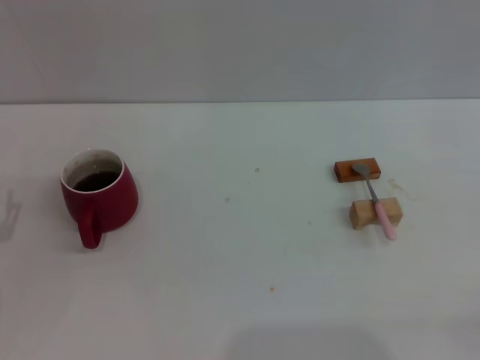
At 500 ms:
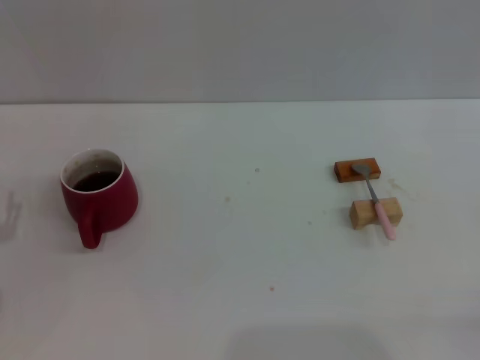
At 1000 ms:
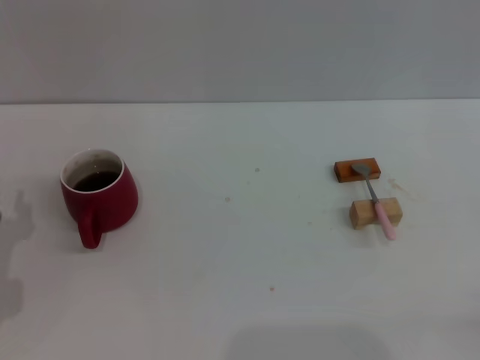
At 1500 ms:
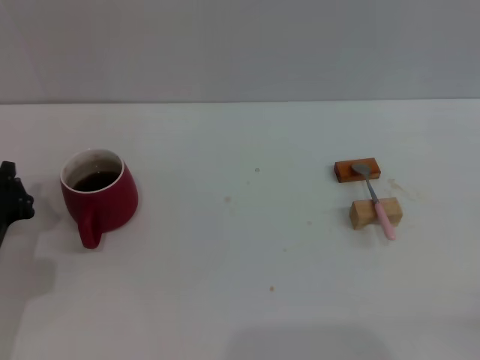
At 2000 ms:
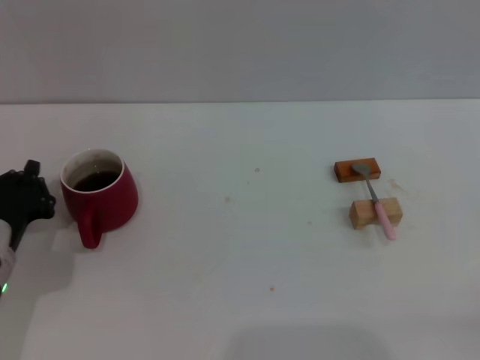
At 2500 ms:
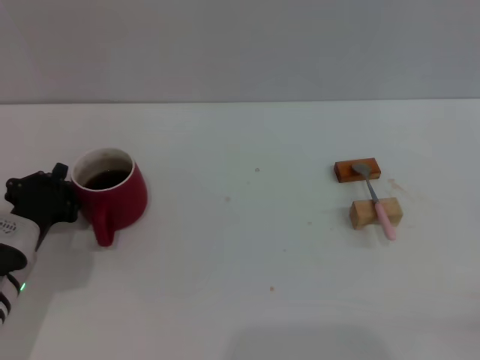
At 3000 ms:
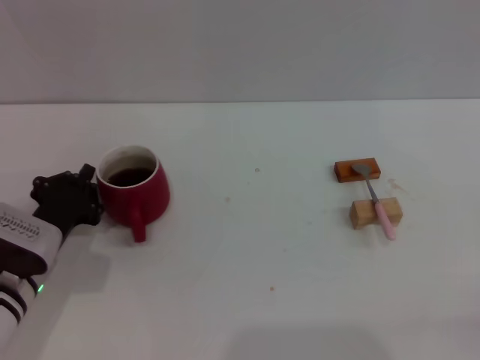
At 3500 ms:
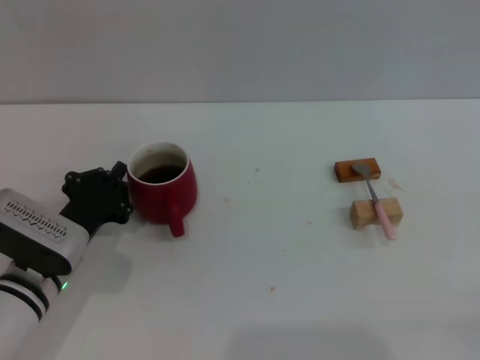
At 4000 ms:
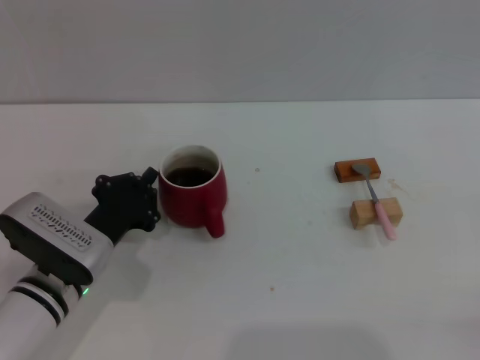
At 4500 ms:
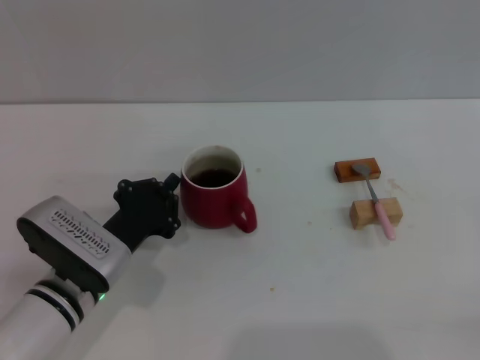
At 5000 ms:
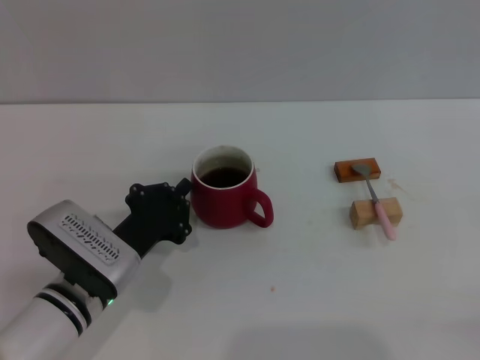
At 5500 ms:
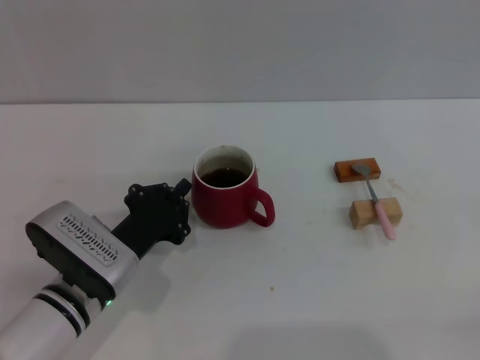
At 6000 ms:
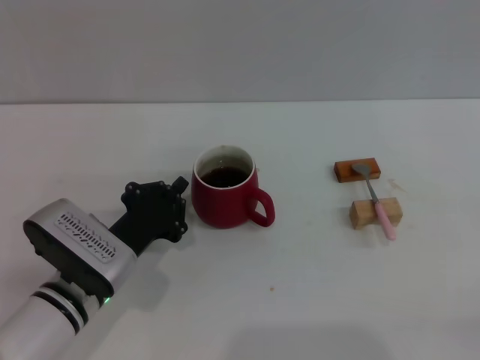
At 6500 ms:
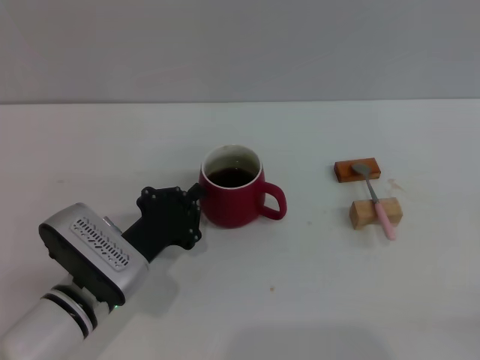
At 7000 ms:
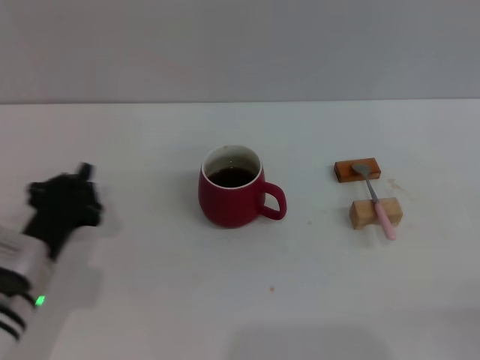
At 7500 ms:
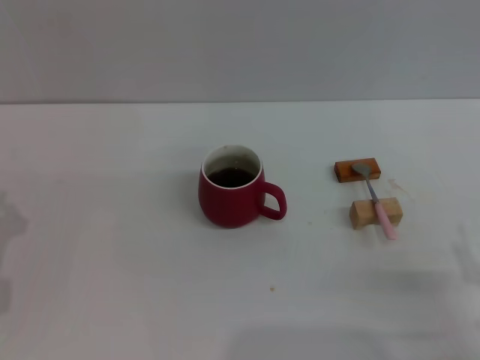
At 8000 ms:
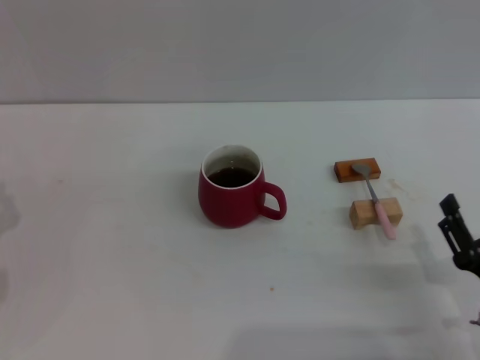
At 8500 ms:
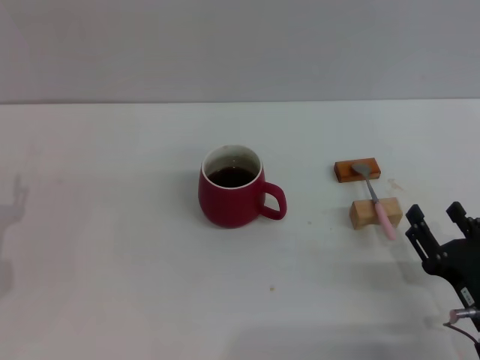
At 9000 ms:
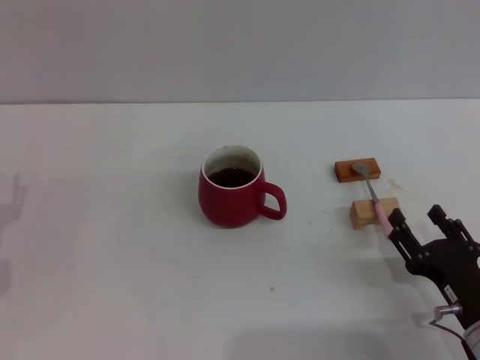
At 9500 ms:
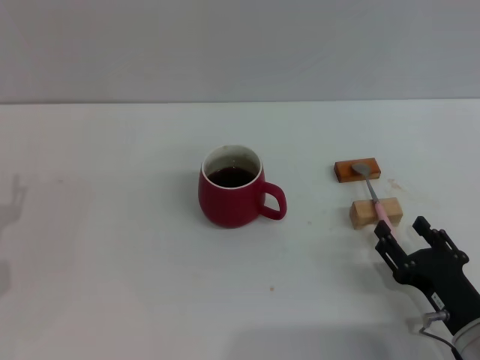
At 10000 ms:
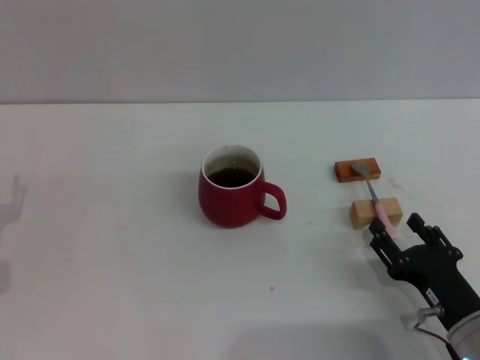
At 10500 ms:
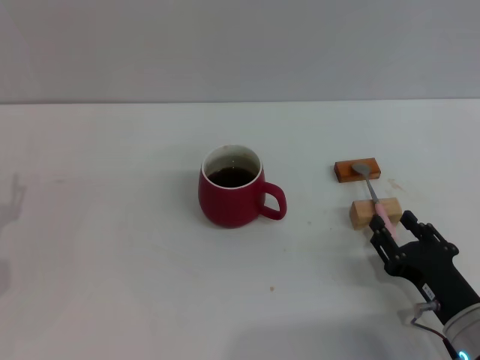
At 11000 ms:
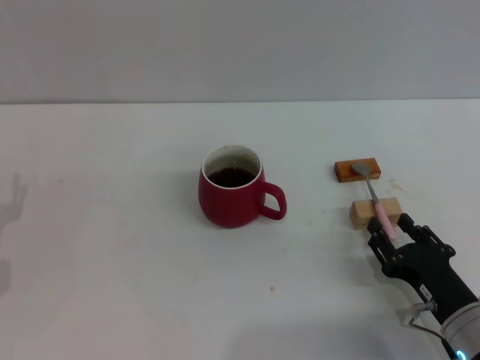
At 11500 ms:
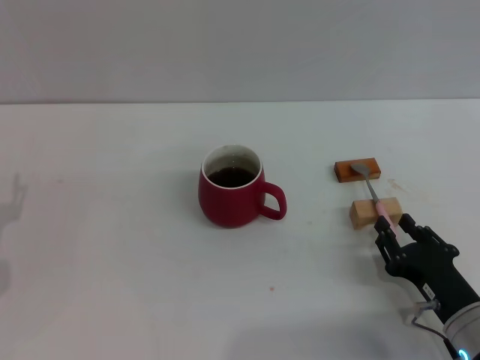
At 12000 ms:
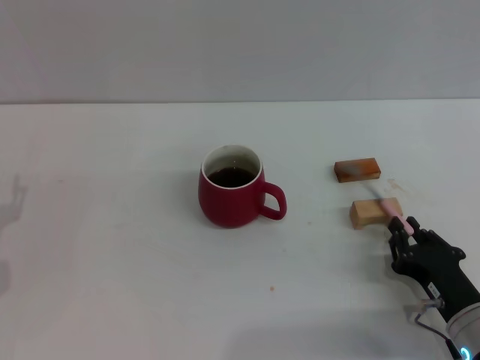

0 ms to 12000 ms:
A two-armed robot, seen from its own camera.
Task of the whole recording: Move the red cup to the center, lift the pink spoon, stir it three times in the cup, and put the spoon into the cup.
Step, 0 ms to 6500 ms: Move the cup with coffee to the center of view with the left gripper.
0 ms to 2000 ms: The left gripper moves roughly 5 cm, and closes its fingers.
2000 ms to 4000 ms: The left gripper heads to the right, covering roughly 10 cm.
4000 ms to 6000 ms: The grippers move only a little.
6000 ms to 8000 ms: The right gripper travels to the left and forward by some 10 cm; the left gripper goes roughly 15 cm to the left.
10000 ms to 12000 ms: The right gripper closes up.

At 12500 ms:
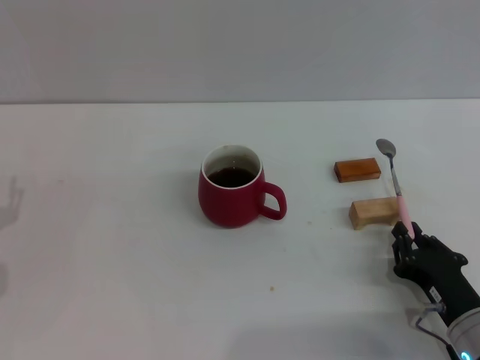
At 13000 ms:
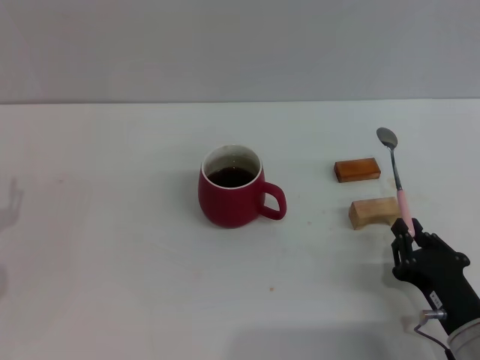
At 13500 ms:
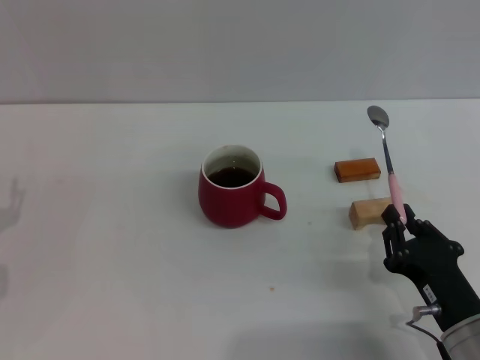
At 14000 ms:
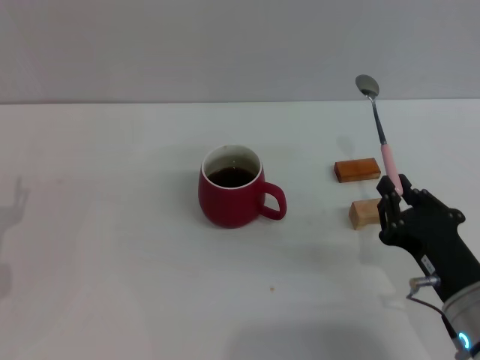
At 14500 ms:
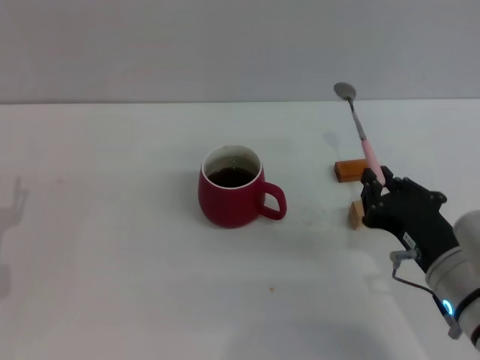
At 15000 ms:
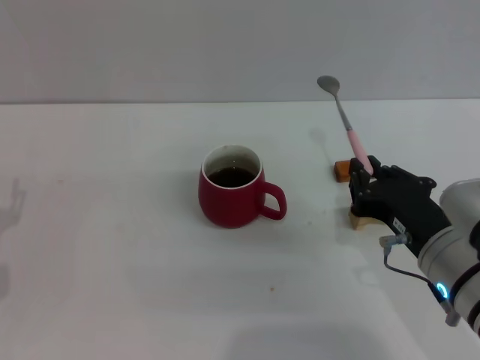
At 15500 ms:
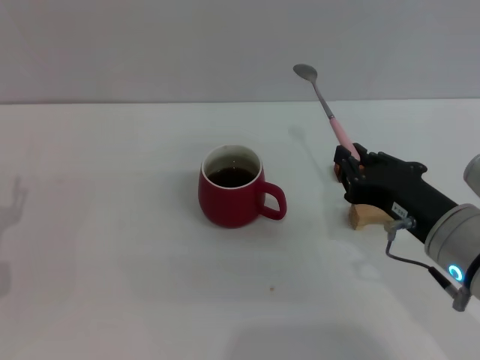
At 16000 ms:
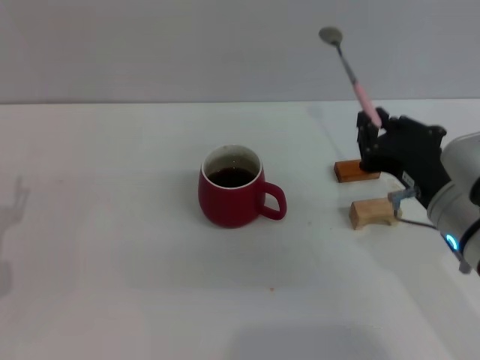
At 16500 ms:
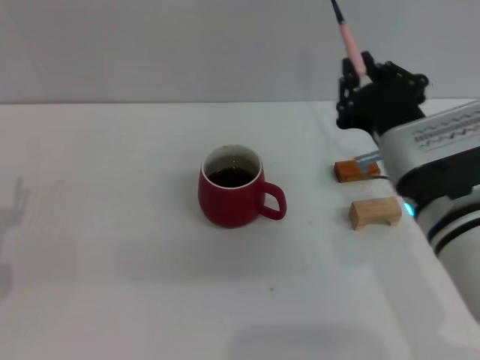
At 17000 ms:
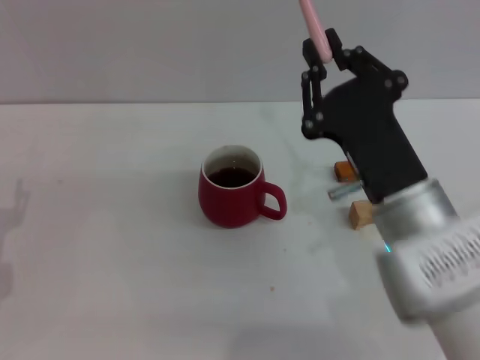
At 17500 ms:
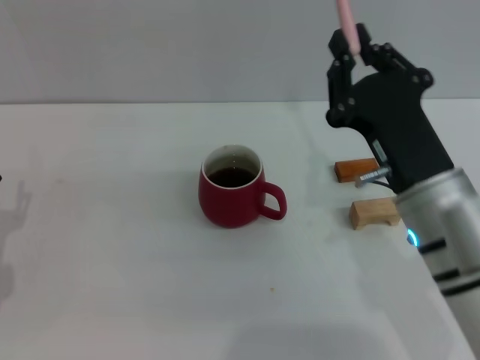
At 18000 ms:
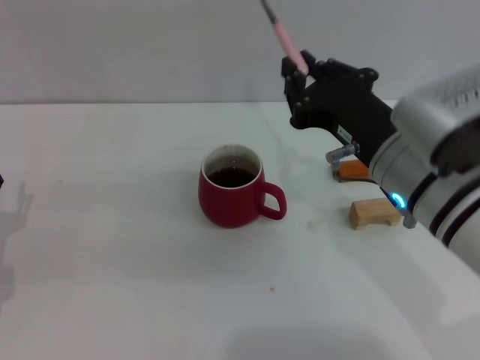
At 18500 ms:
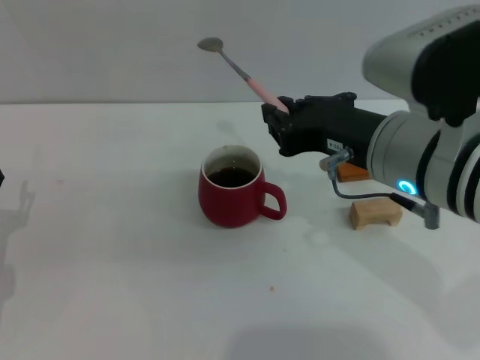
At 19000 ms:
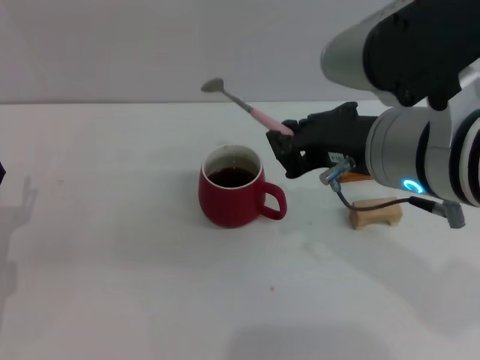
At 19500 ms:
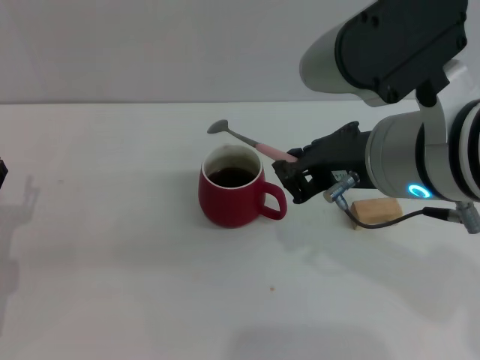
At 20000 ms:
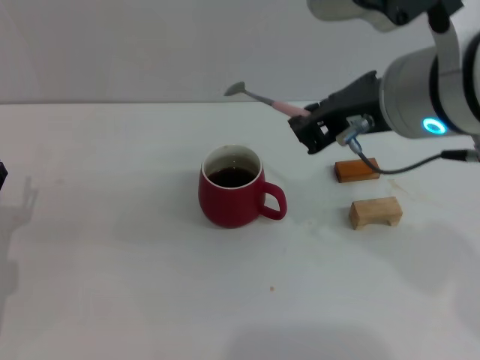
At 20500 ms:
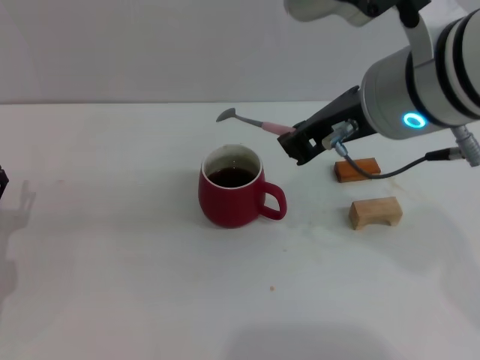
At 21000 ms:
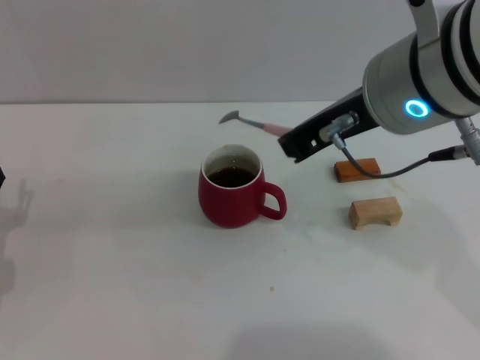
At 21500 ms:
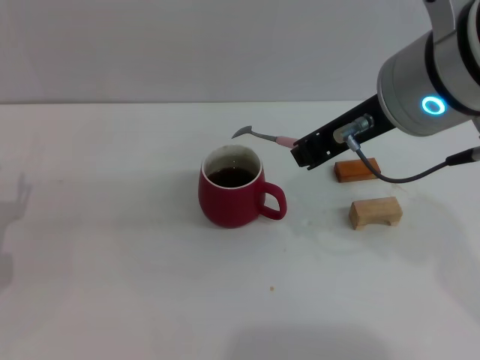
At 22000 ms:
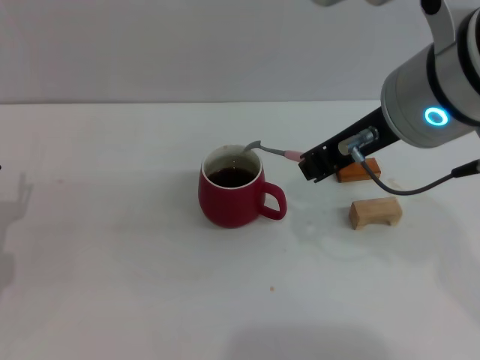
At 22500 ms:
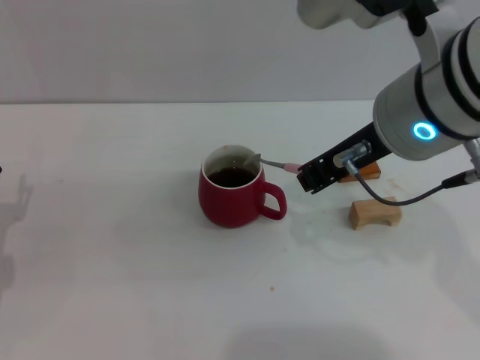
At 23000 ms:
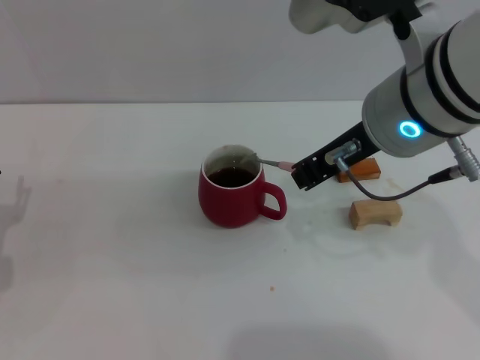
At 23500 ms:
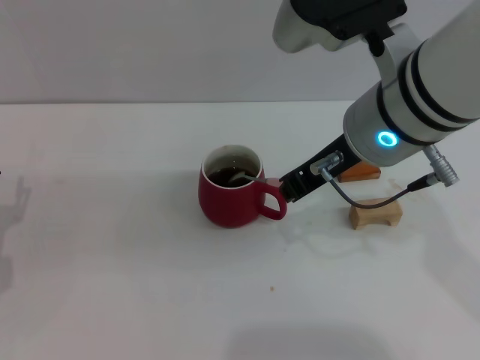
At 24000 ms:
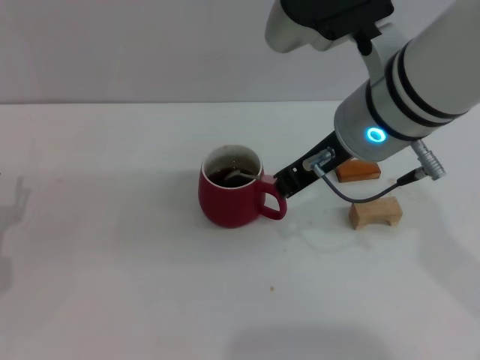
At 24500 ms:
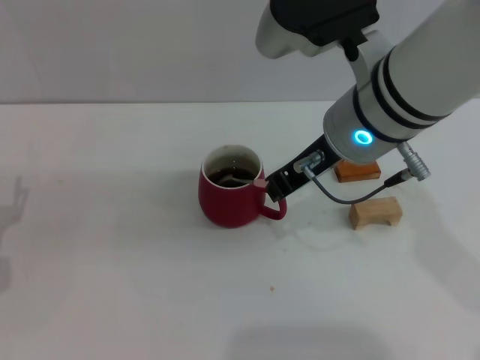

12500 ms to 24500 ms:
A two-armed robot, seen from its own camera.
Task of the whole recording: Move the red cup to the center, lift the pink spoon, stir it three times in the cup, and put the spoon into the cup.
12500 ms to 14500 ms: The right gripper travels upward by roughly 10 cm.
14500 ms to 16500 ms: The right gripper heads upward and forward, covering about 10 cm.
16500 ms to 18500 ms: The right gripper is displaced upward by roughly 5 cm.
18500 ms to 20500 ms: The right gripper moves upward, roughly 5 cm.
20500 ms to 22500 ms: The grippers move only a little.
22500 ms to 24500 ms: The right gripper ends up roughly 5 cm from where it was.

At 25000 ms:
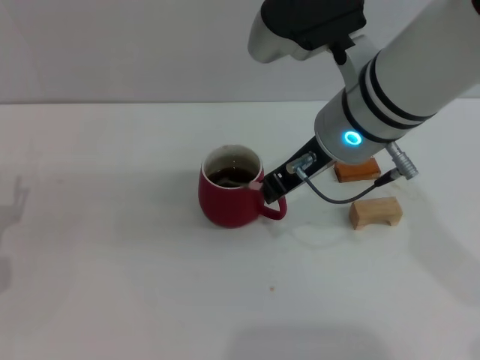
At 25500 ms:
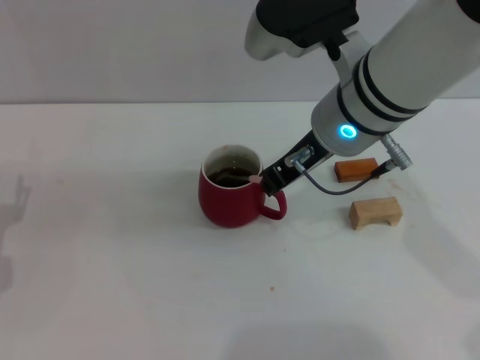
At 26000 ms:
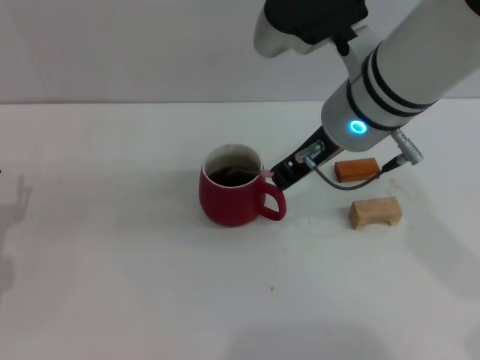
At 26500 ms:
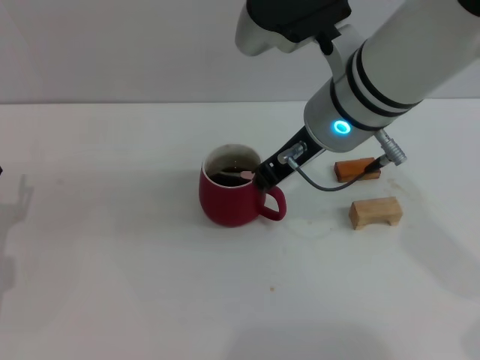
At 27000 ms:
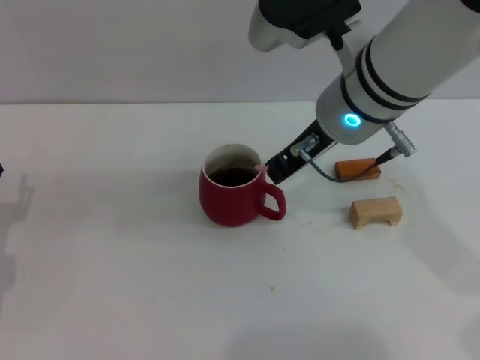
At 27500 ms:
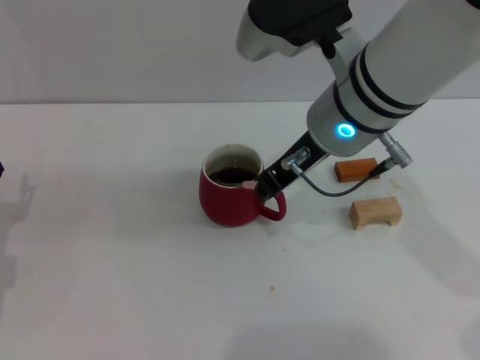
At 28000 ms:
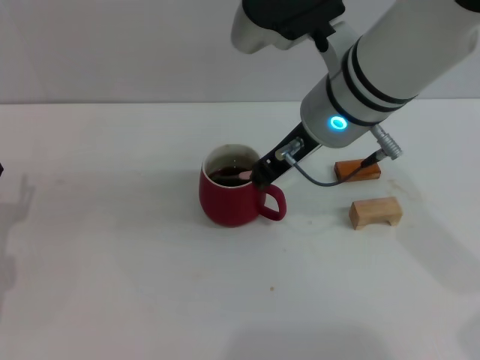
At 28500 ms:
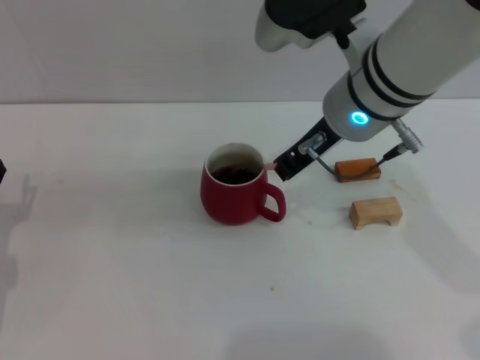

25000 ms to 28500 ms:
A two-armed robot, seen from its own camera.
Task of the whole recording: Move the red cup to the center, lift the pink spoon, stir it three times in the cup, and put the spoon into the cup.
25000 ms to 28500 ms: There are only small adjustments of the grippers.
